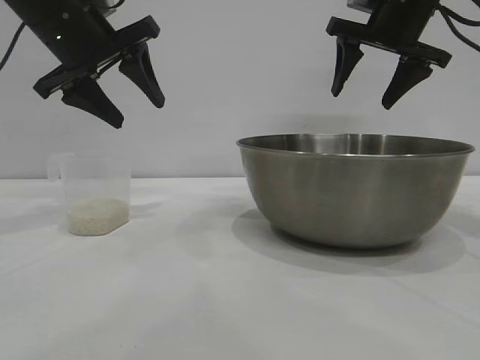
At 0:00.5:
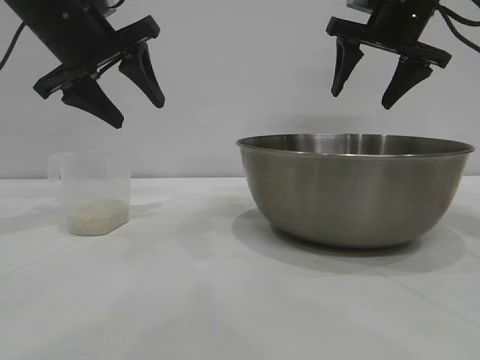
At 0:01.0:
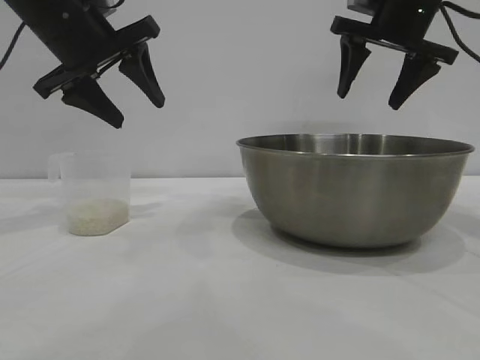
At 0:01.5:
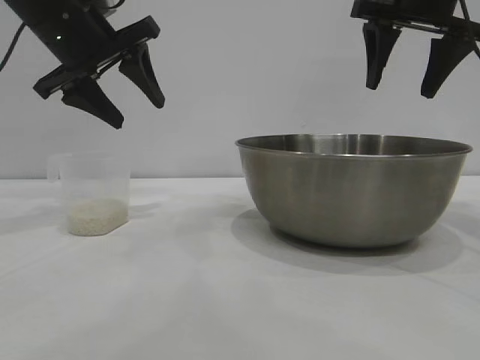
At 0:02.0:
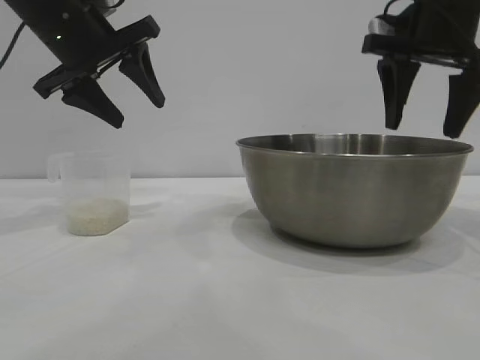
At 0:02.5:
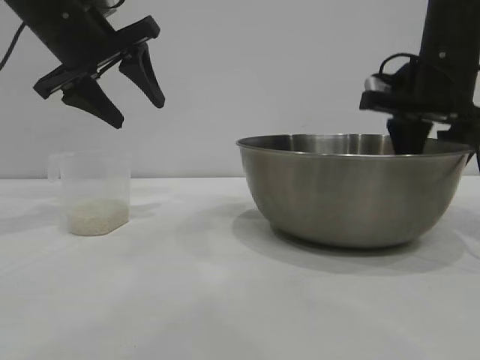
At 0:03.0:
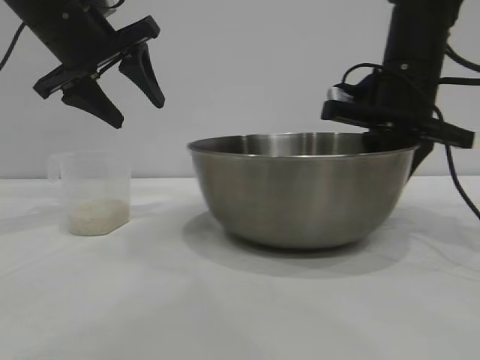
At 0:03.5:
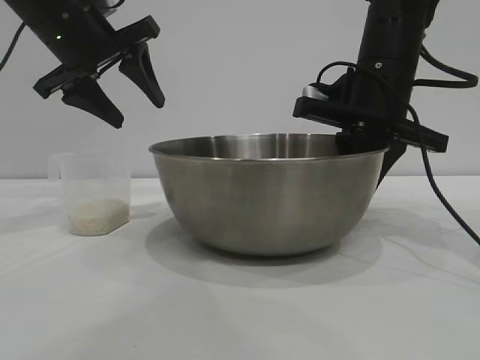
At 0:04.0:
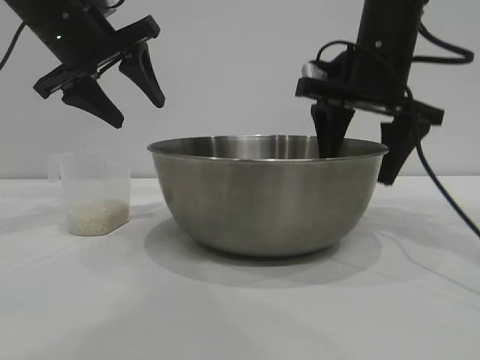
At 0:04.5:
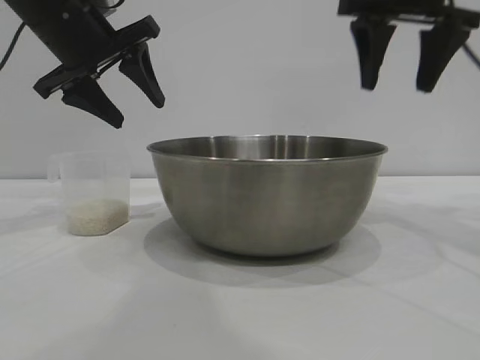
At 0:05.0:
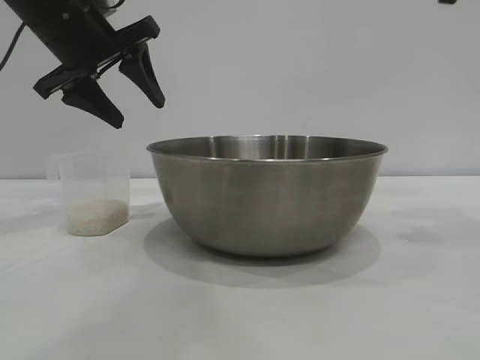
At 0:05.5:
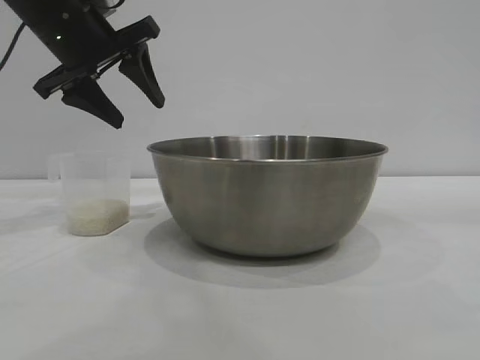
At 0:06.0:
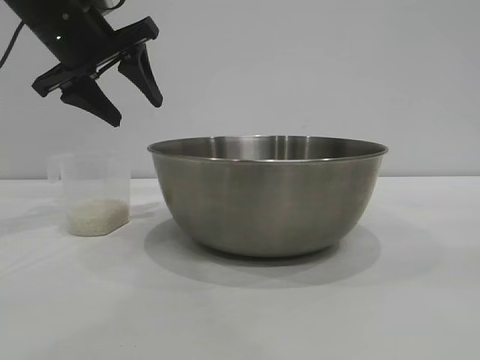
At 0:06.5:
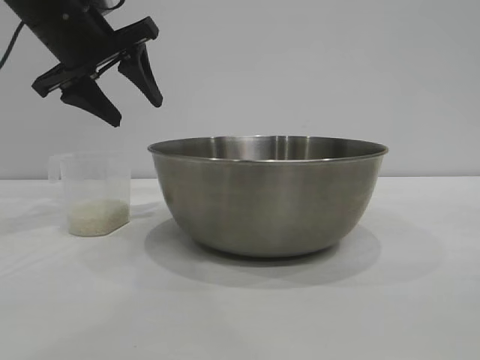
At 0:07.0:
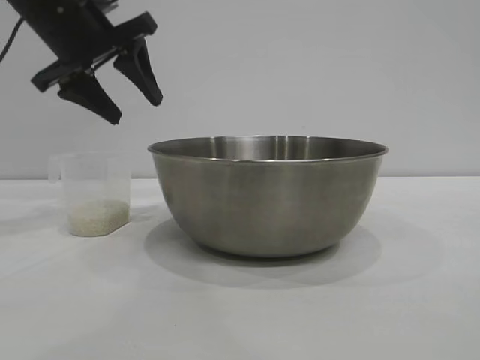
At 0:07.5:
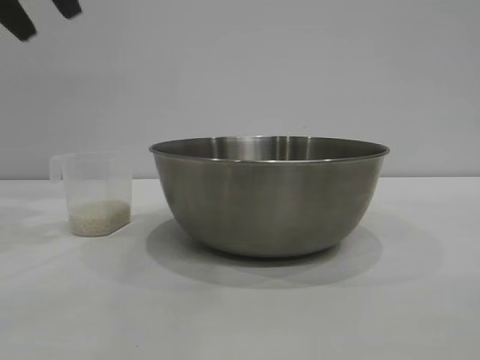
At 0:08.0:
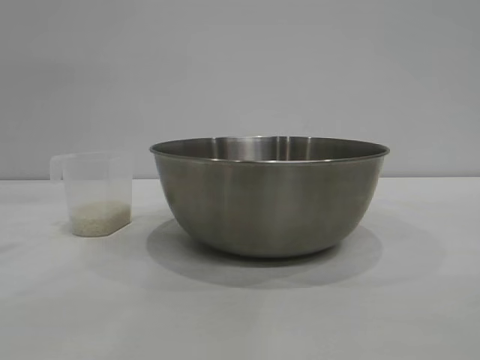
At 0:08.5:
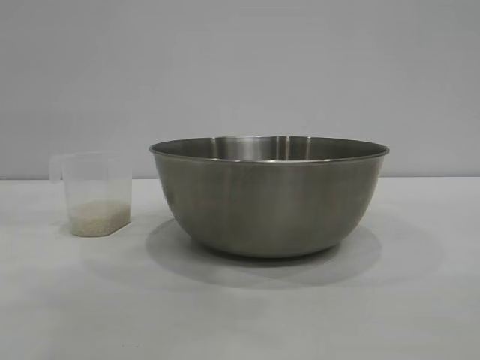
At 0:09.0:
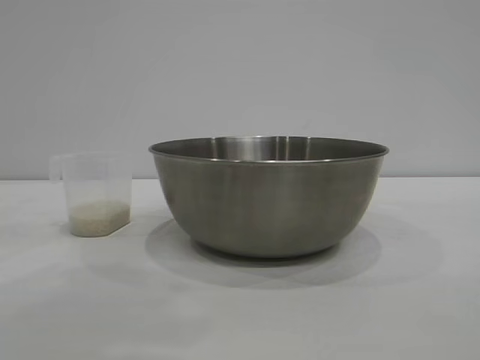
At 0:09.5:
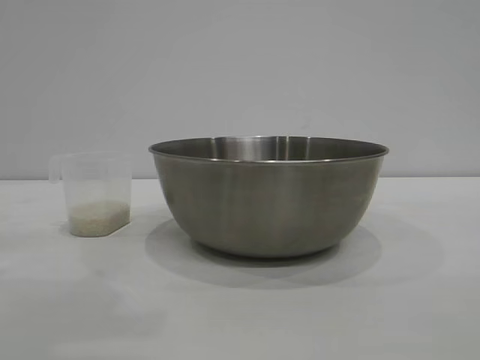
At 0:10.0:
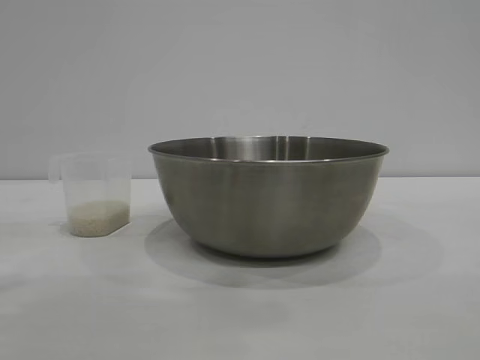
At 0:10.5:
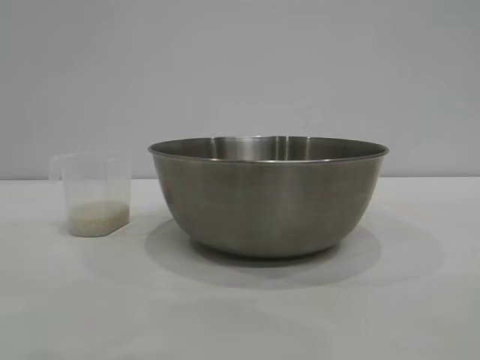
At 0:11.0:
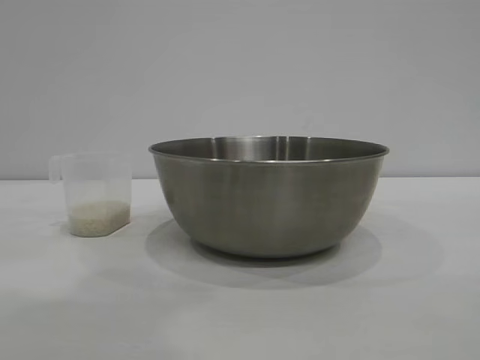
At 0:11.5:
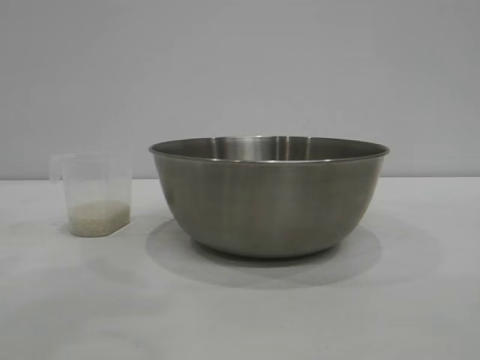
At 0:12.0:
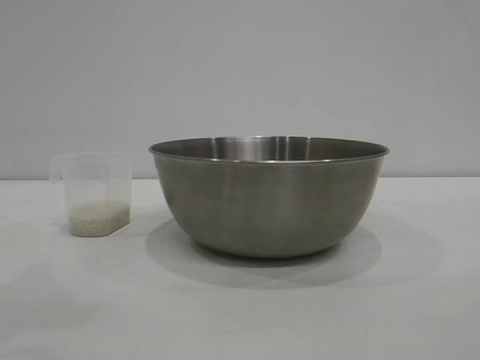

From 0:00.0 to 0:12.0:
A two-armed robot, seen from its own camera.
Task of the whole recording: the right gripper grasp the rice container and place it in the center of the table, the left gripper grasp the rice scoop and pour the rice into the rice container.
Step, from 0:00.0 to 0:04.0: Move the bowl to the center of view with the right gripper.

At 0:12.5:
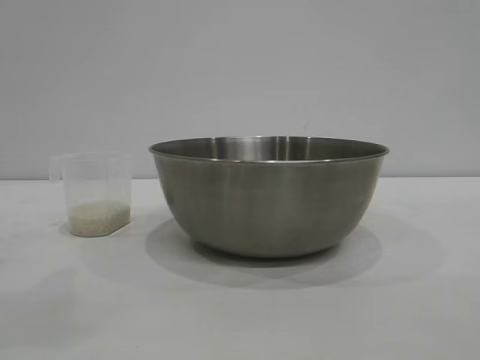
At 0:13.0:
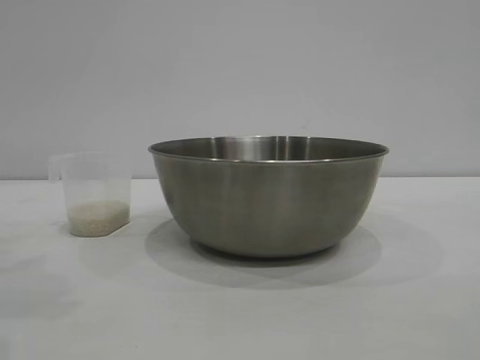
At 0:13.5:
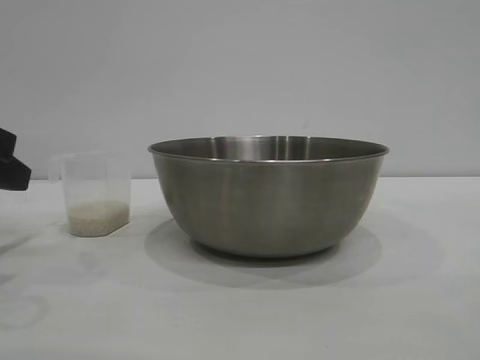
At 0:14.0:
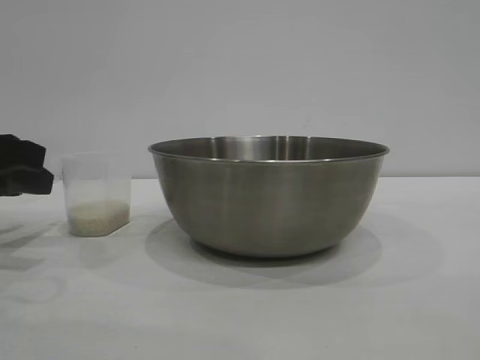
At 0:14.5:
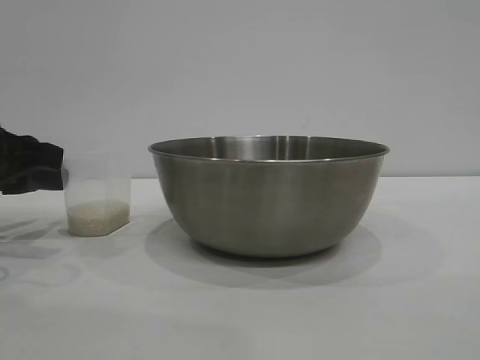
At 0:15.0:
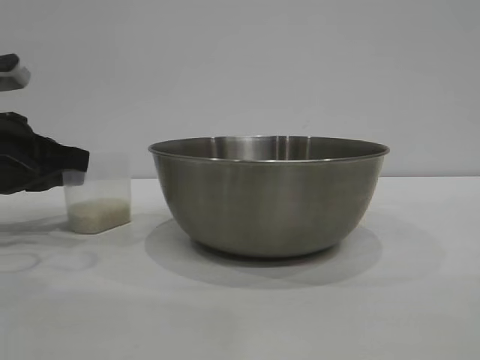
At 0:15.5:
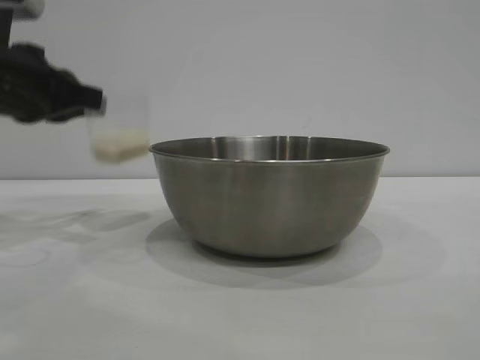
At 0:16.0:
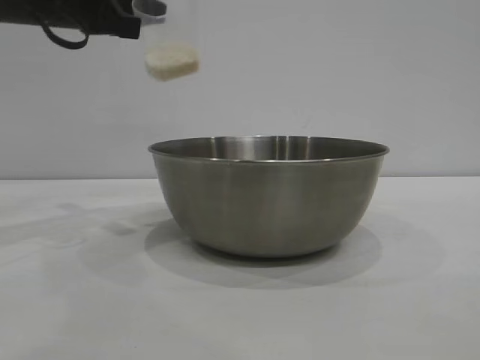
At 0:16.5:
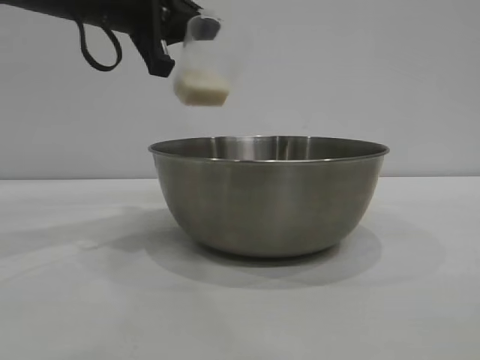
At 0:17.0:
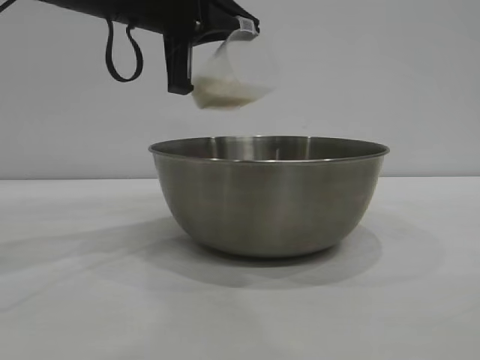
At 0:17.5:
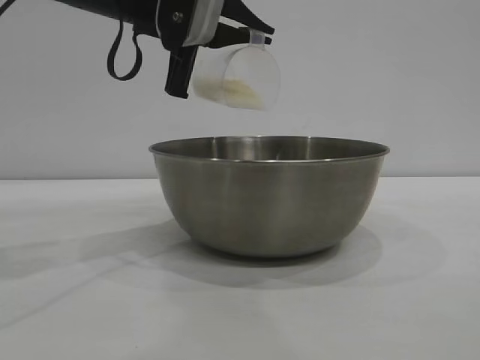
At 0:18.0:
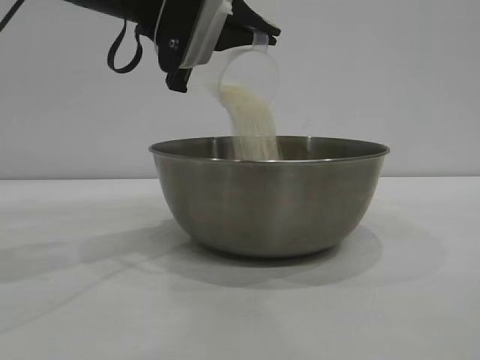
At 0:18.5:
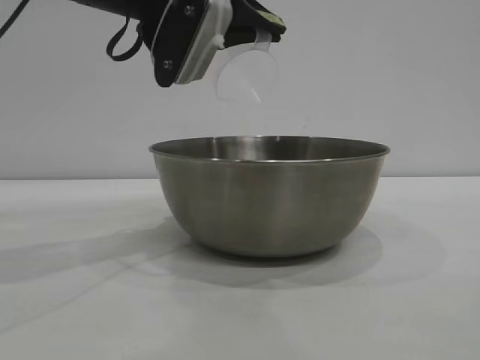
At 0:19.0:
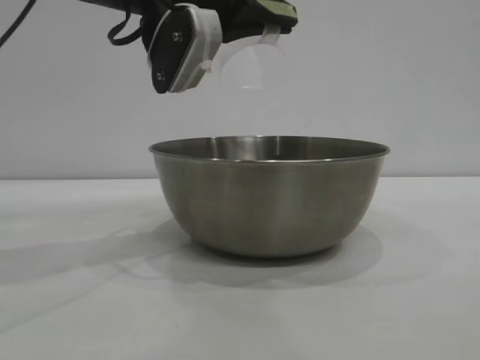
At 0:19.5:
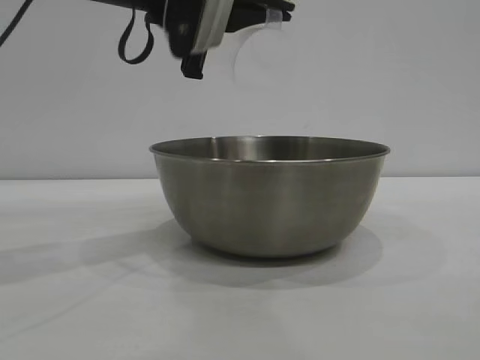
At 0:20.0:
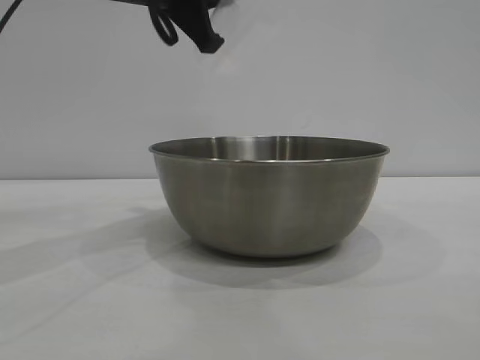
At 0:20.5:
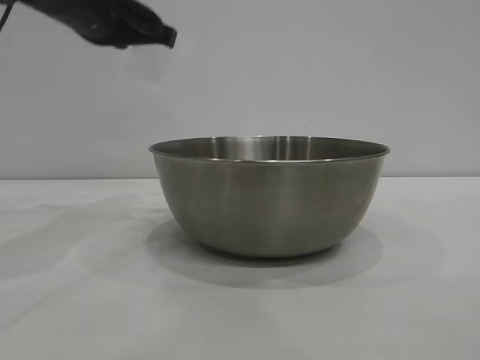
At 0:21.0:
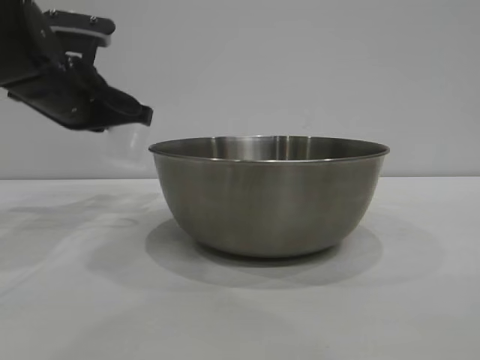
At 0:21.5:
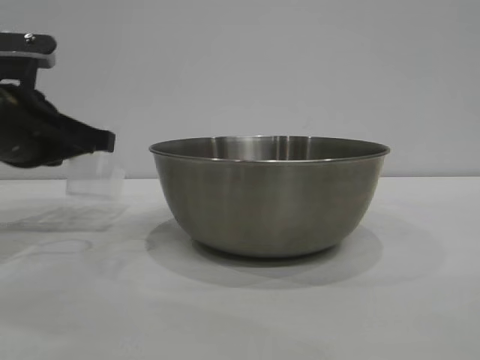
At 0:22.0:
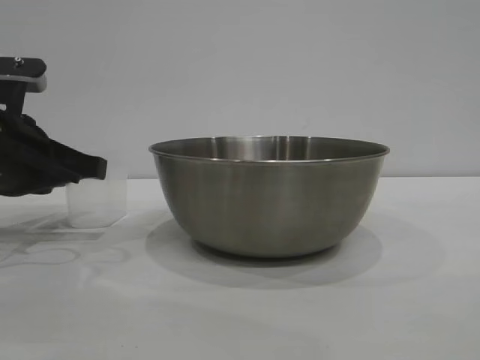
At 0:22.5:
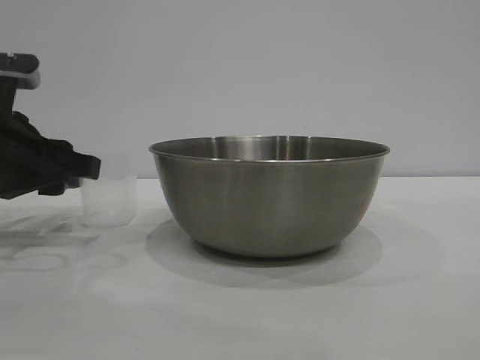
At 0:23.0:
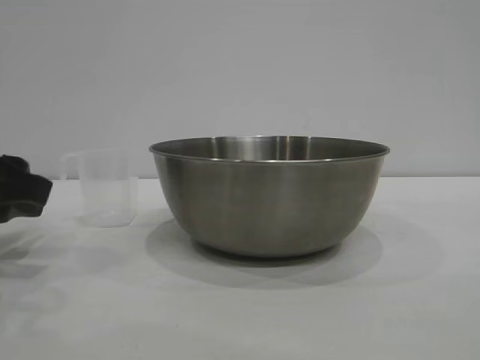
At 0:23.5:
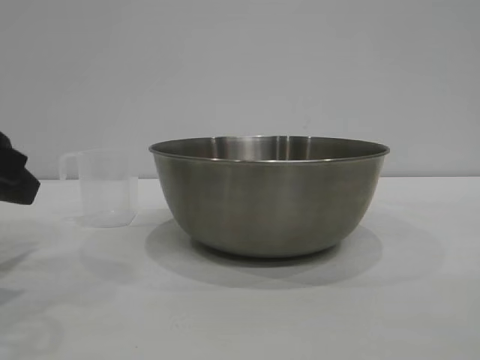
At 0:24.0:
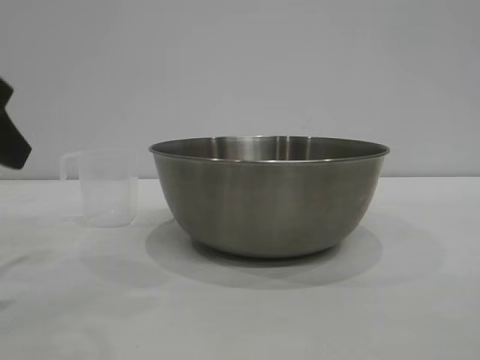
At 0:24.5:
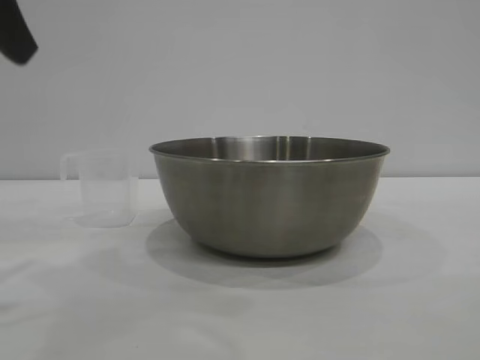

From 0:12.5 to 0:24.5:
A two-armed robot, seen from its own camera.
Task of the whole recording: the right gripper grasp the rice container and place it in the center of the table, the left gripper grasp the rice scoop and pour the rice into the rice container.
Step, from 0:12.5 to 0:15.5: Pick up the cup with rice in it with the left gripper.
Step, from 0:16.0 to 0:19.5: Pour the rice from the cup into the bowl with the left gripper.
Step, from 0:20.0 to 0:22.5: Place the cup on the table with the left gripper.
